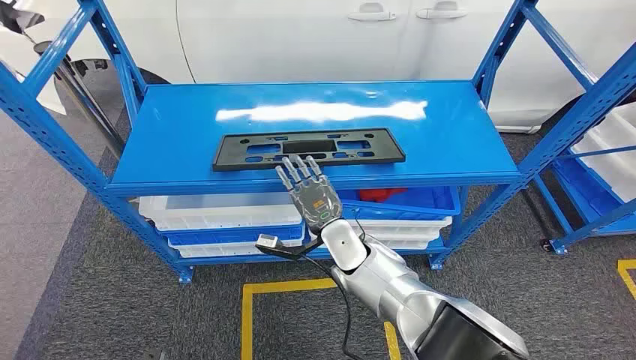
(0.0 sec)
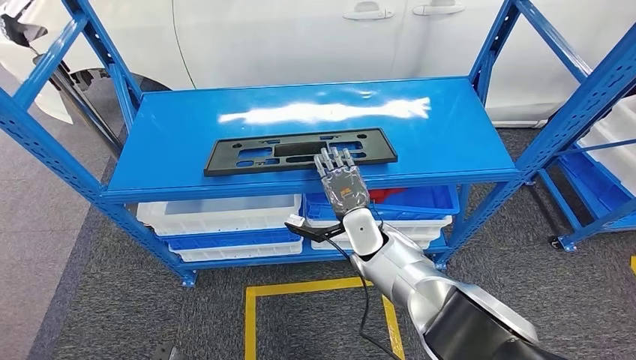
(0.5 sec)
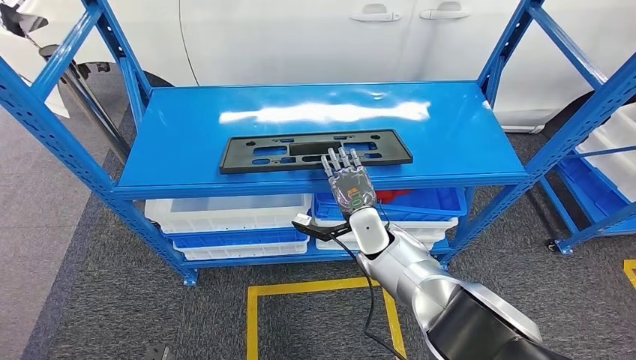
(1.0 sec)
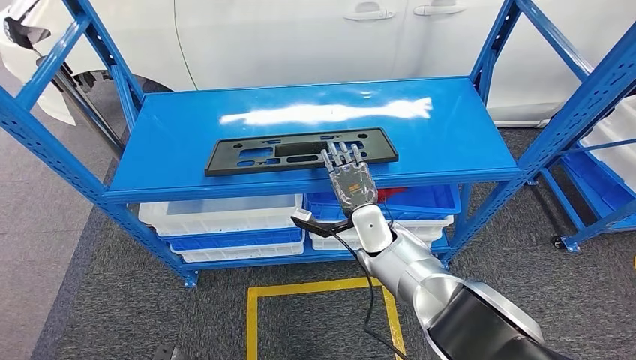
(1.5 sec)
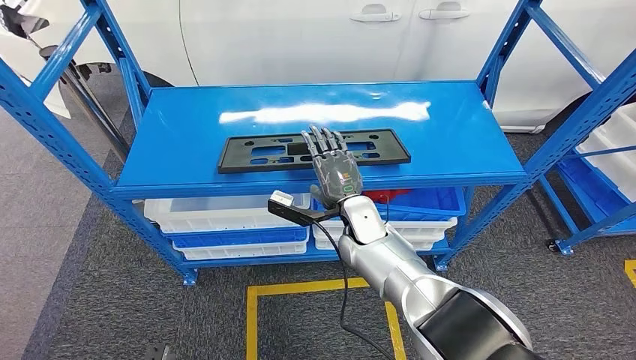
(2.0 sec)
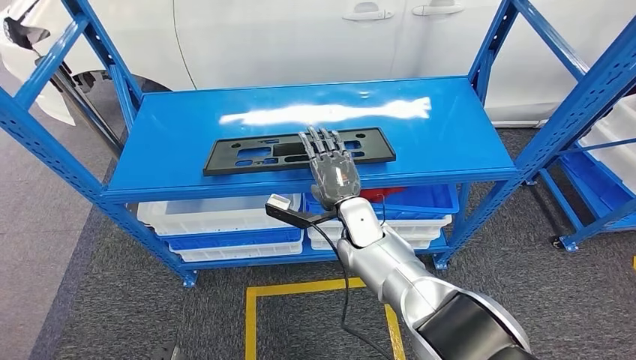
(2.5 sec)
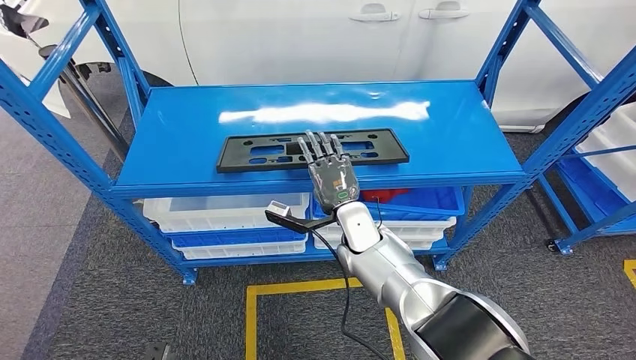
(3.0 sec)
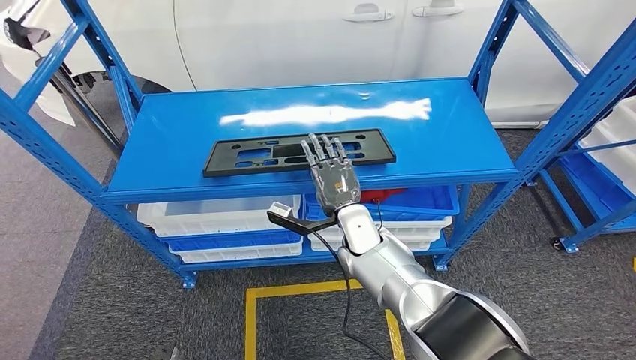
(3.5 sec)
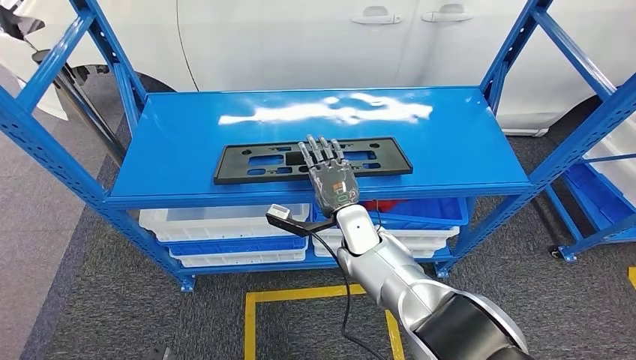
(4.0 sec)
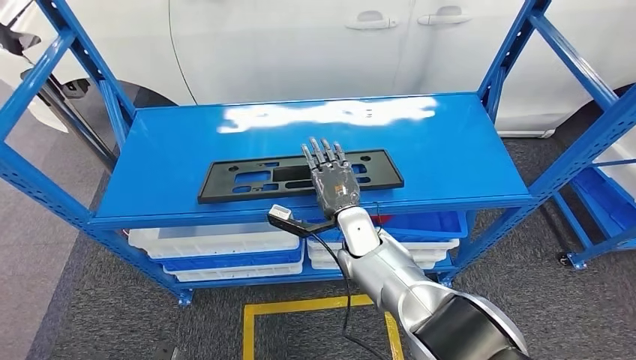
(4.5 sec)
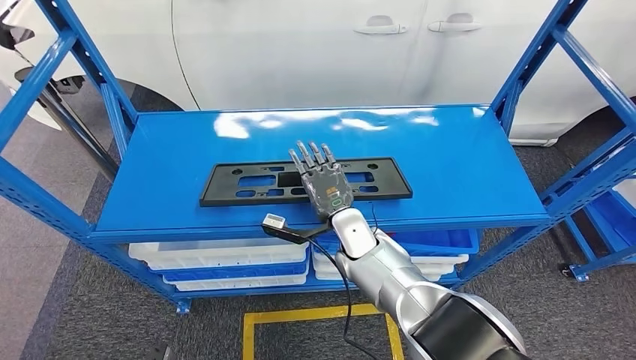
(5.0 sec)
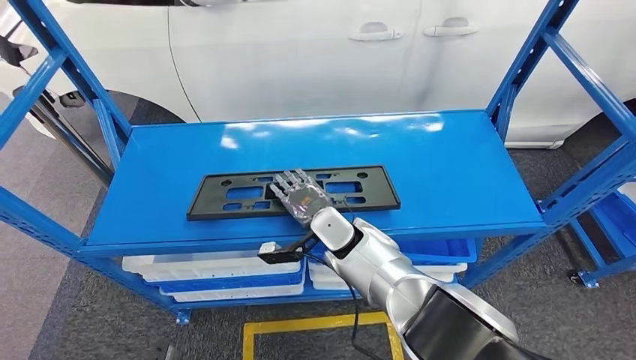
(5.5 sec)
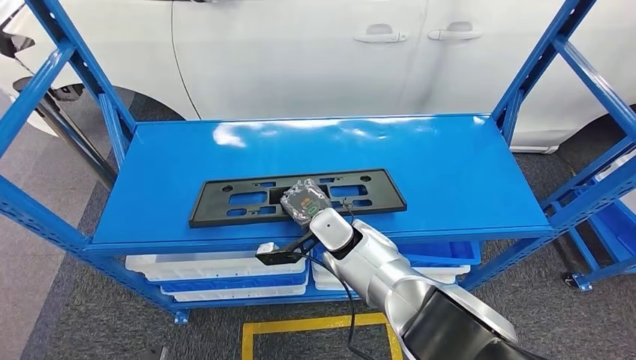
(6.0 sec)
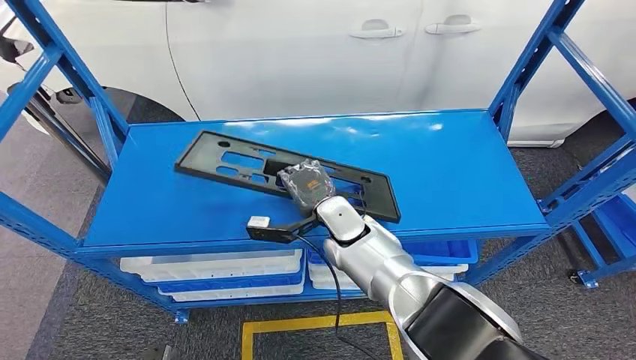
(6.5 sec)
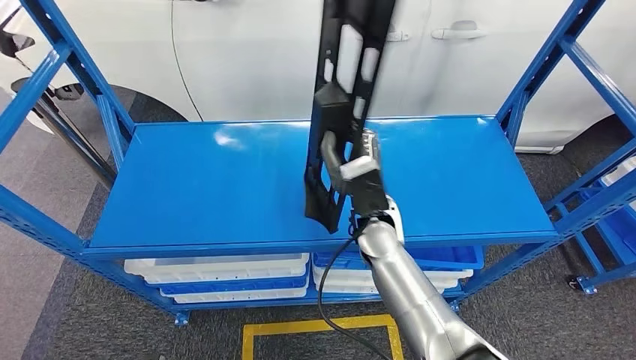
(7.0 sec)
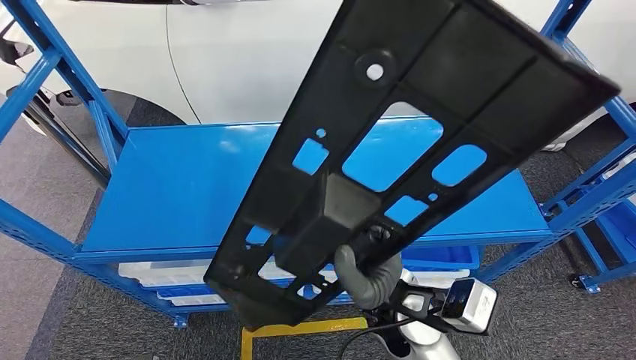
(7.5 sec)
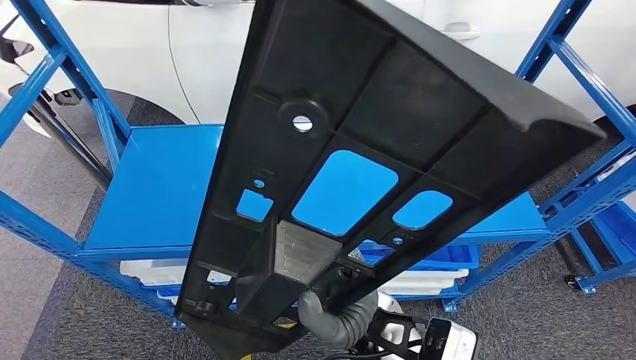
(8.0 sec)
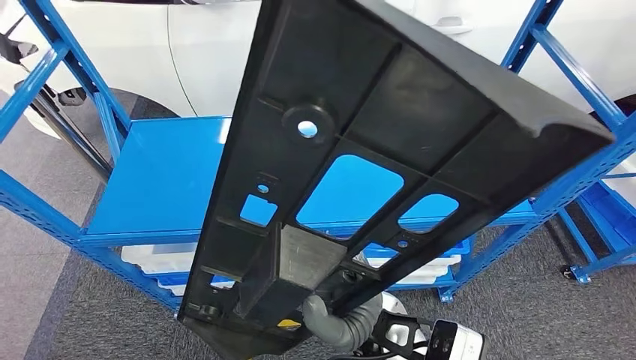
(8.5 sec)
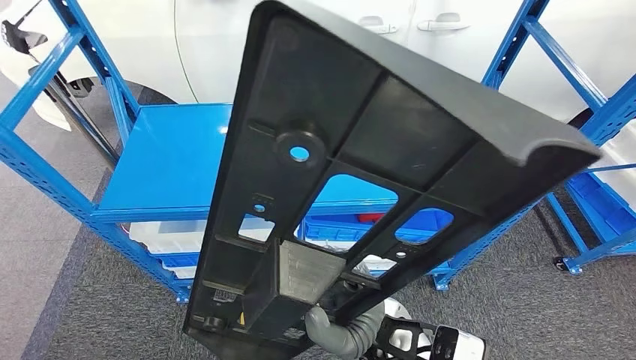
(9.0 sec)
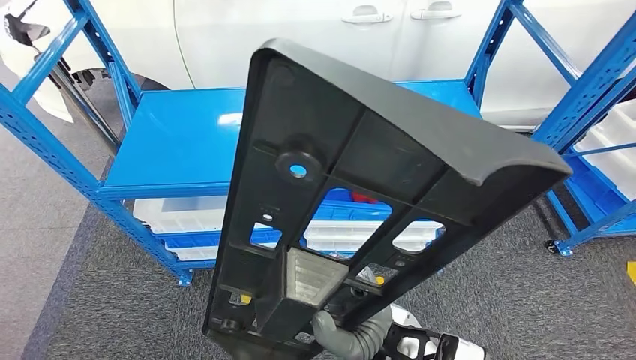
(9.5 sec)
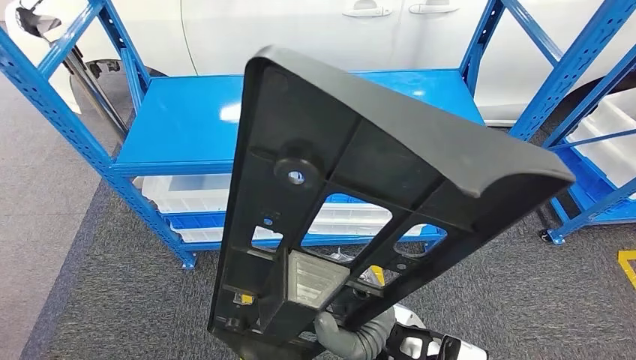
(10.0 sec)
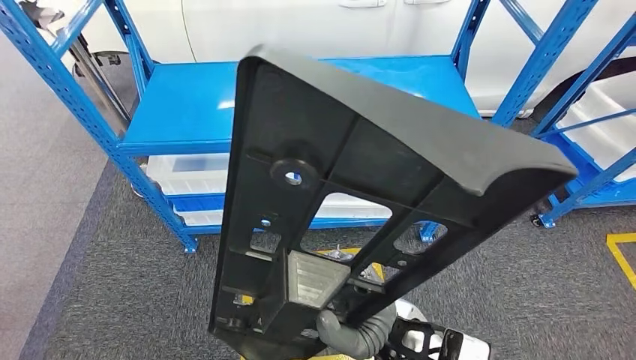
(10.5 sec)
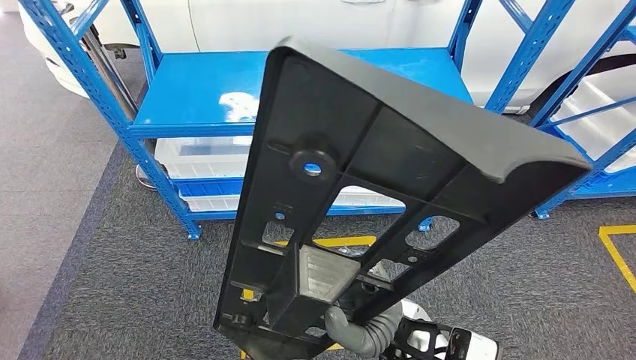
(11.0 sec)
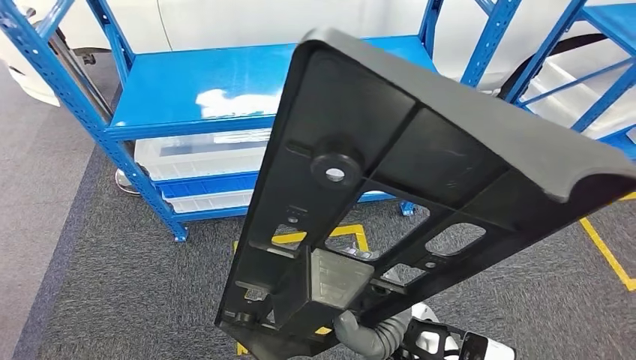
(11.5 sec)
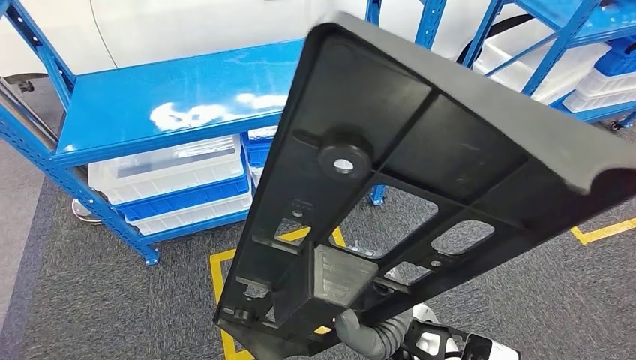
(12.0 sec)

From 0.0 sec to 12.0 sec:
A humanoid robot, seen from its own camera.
Step, from 0.0 sec to 7.5 sec: Pick up the large material from the shelf.

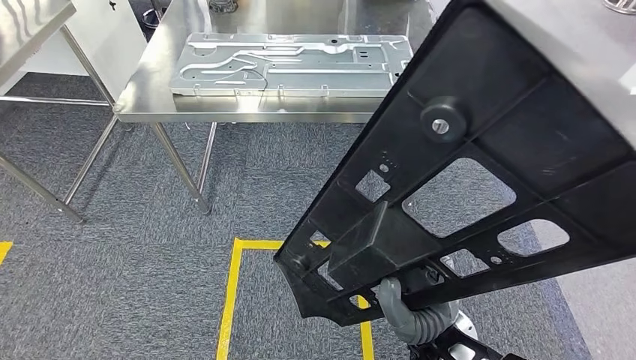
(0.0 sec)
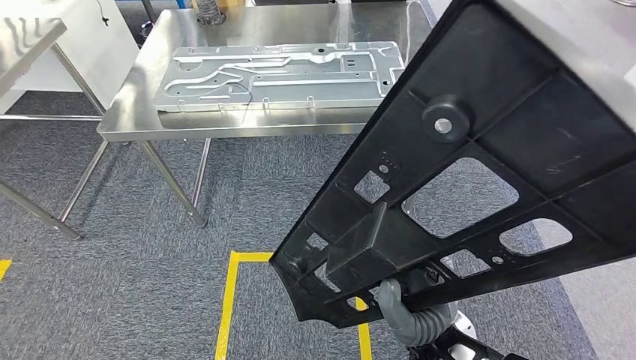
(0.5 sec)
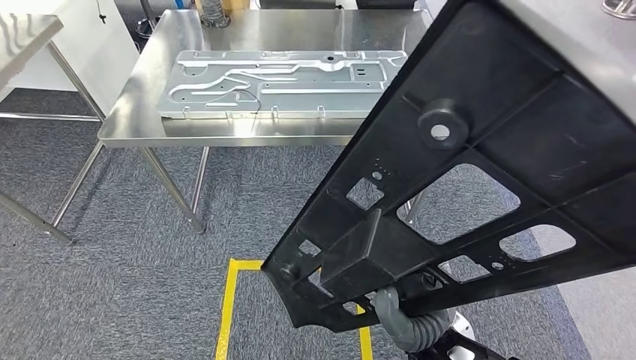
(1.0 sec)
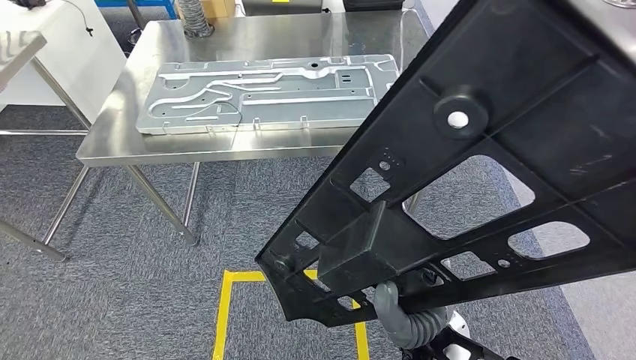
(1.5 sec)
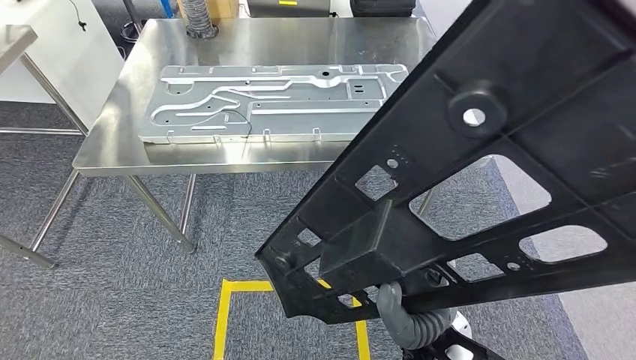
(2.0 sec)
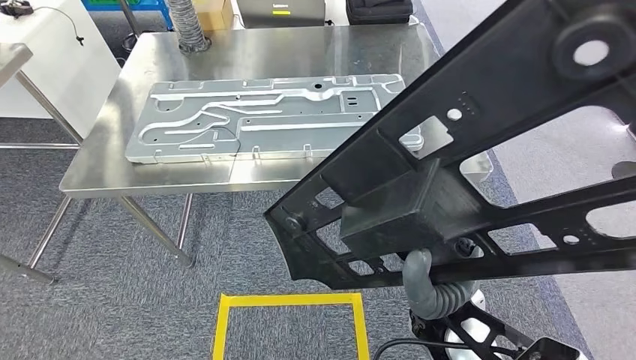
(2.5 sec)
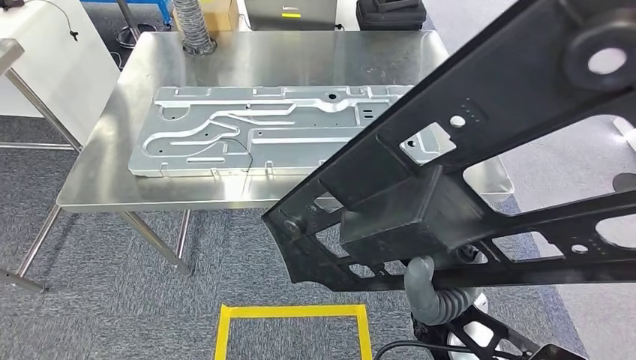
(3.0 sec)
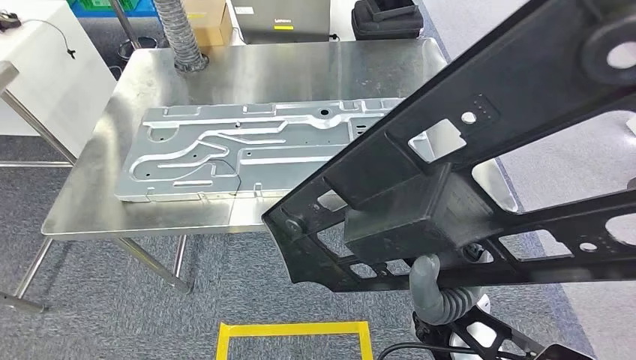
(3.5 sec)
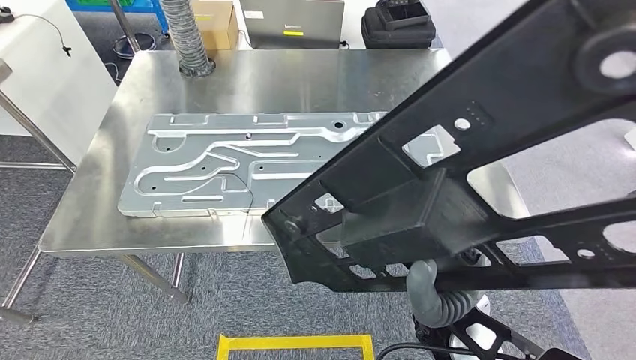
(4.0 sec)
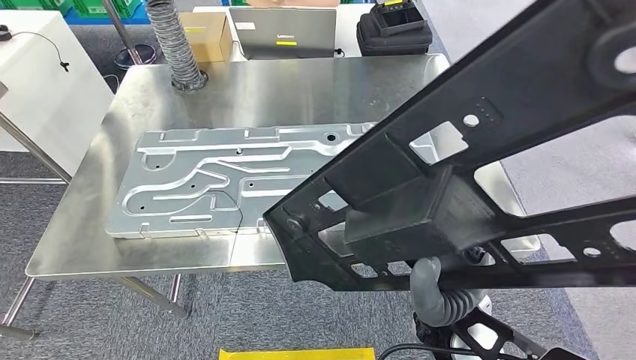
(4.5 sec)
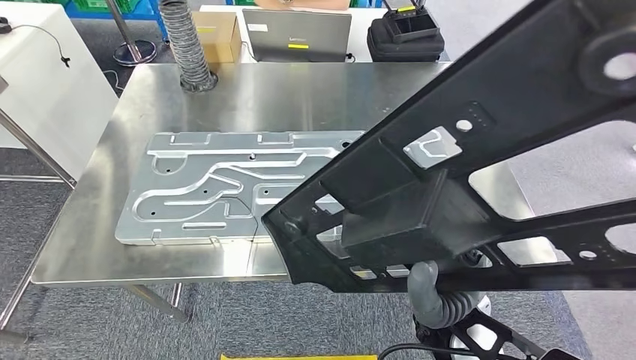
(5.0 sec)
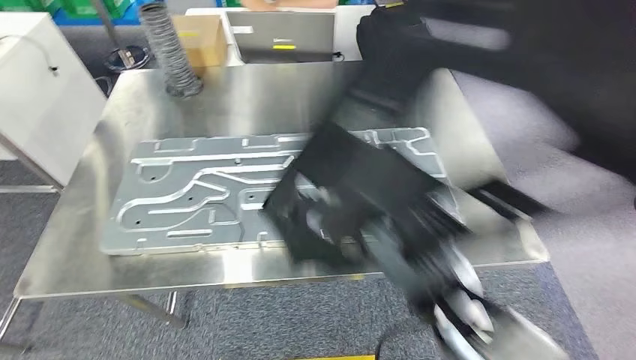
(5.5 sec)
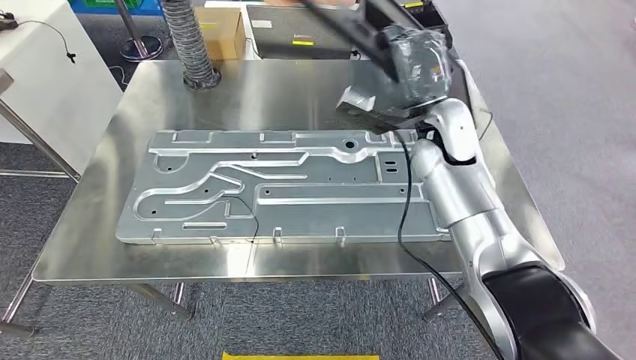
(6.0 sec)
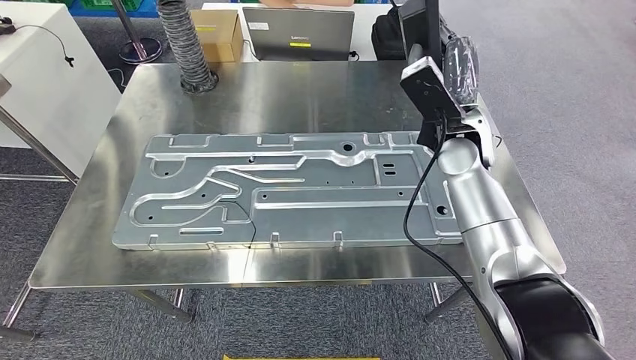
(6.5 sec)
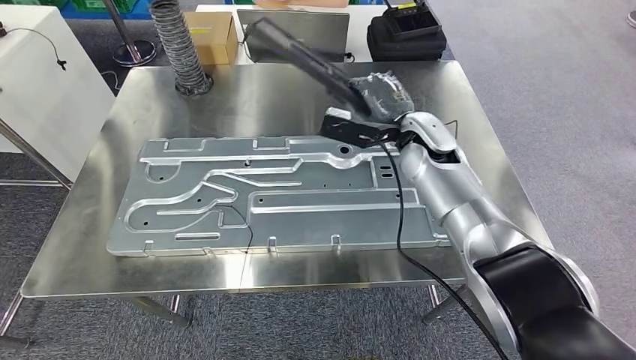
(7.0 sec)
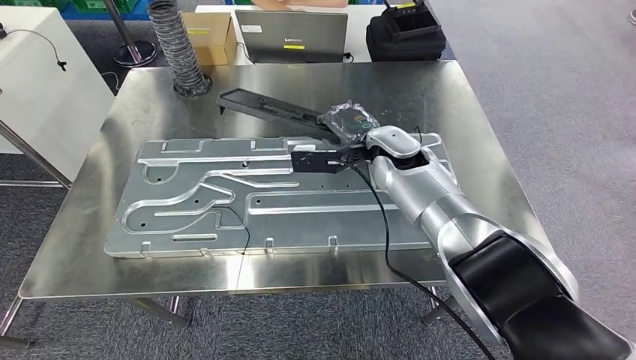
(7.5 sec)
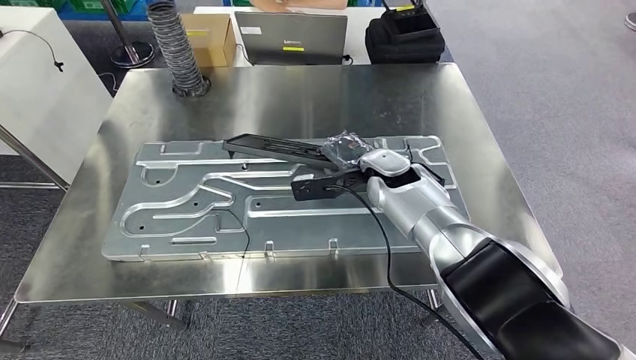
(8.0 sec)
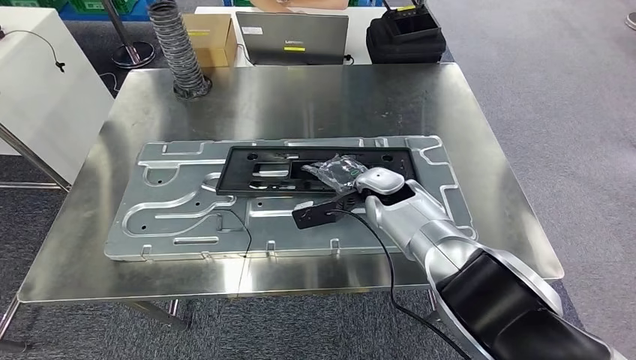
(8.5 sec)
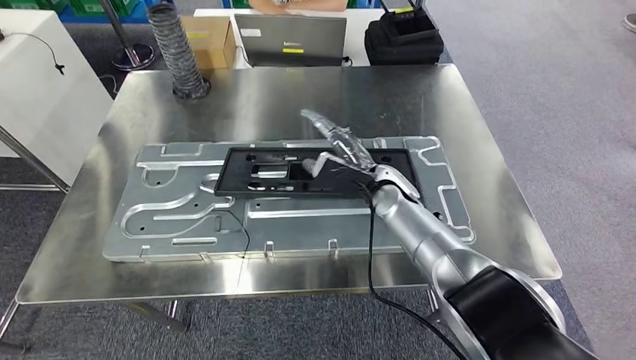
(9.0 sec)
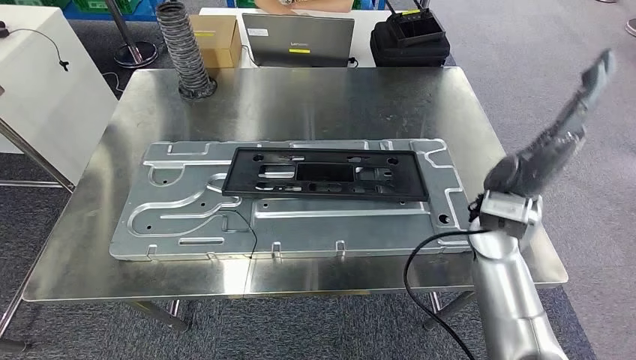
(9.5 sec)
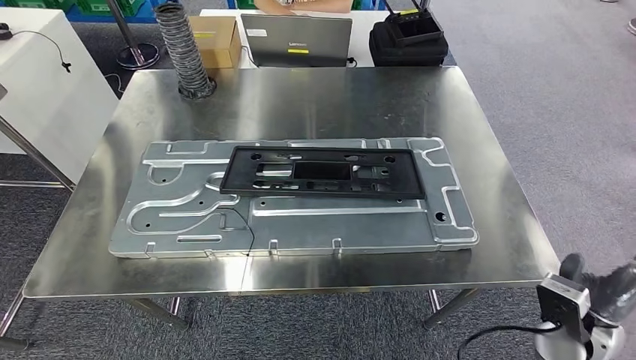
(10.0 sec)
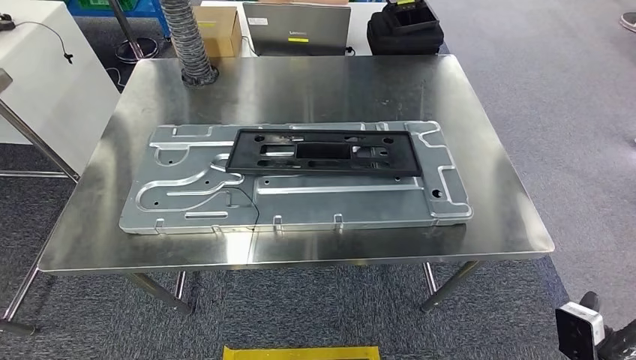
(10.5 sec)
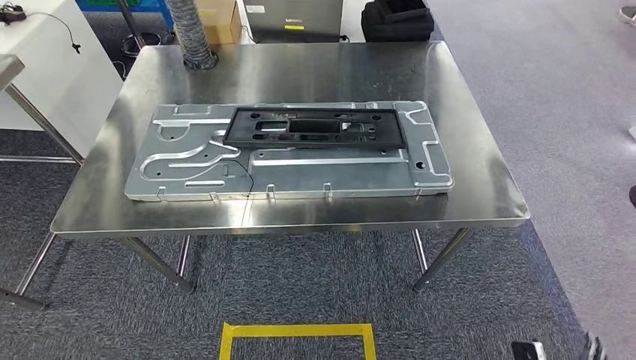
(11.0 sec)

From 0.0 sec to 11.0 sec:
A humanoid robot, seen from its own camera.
Step, from 0.0 sec to 6.5 sec: Move the large material to the workbench.
Step, from 7.0 sec to 9.5 sec: Insert the large material into the corresponding slot on the workbench.
